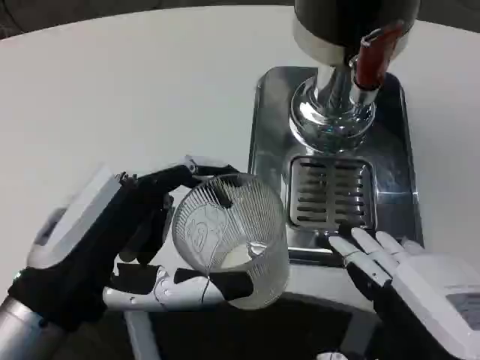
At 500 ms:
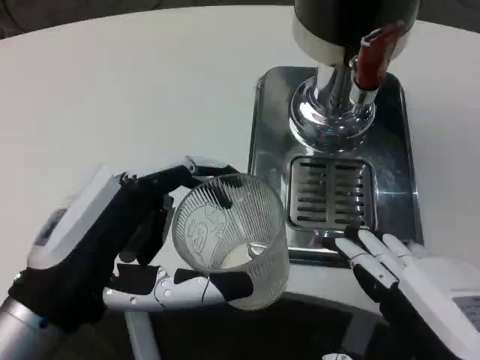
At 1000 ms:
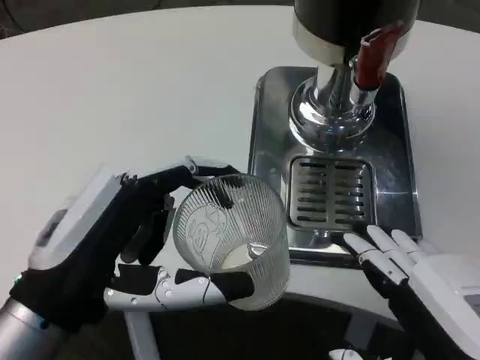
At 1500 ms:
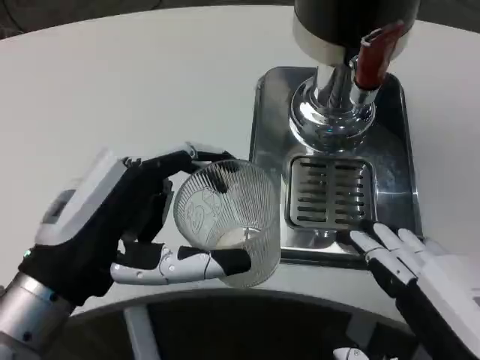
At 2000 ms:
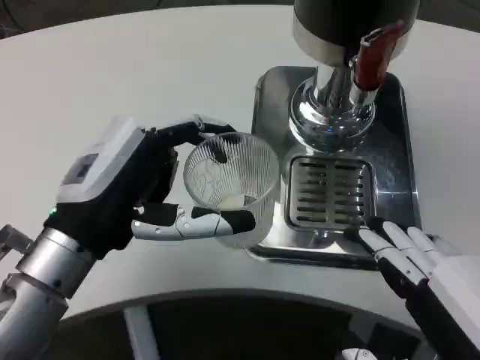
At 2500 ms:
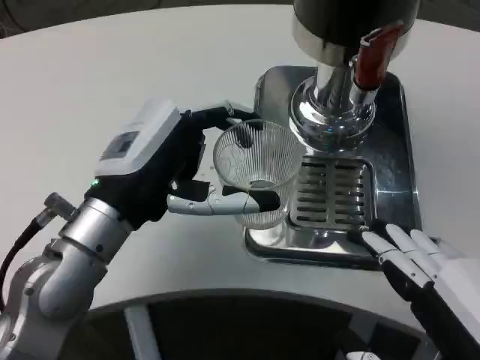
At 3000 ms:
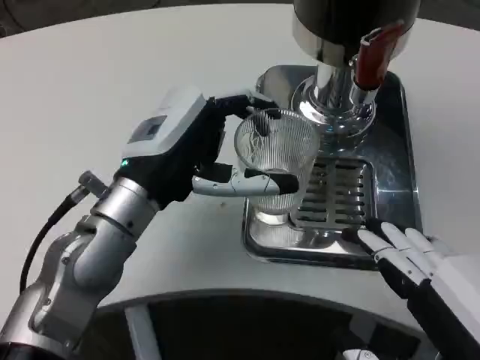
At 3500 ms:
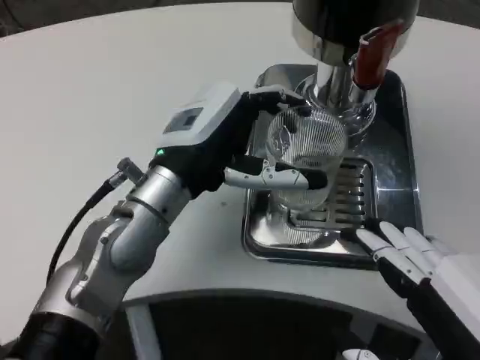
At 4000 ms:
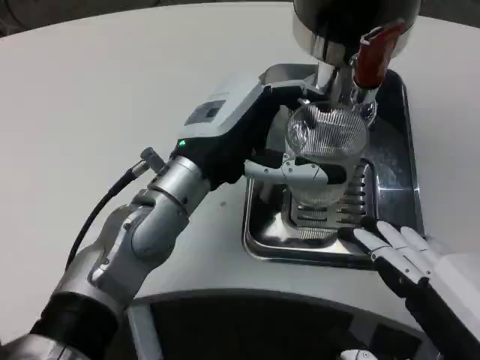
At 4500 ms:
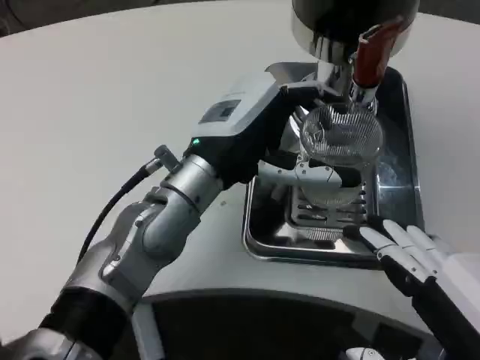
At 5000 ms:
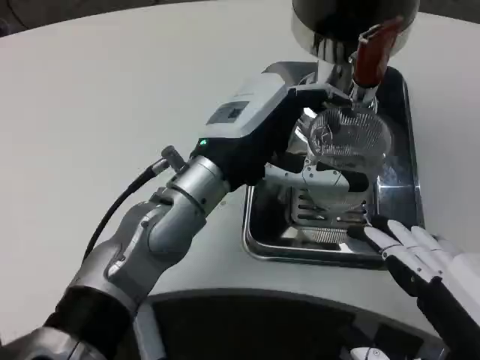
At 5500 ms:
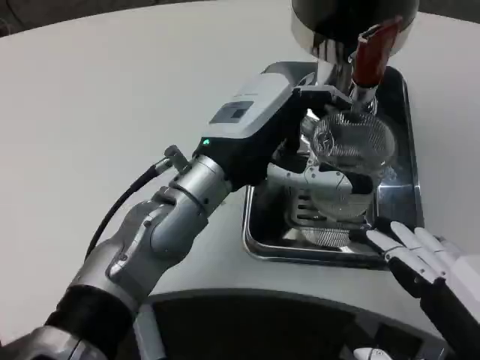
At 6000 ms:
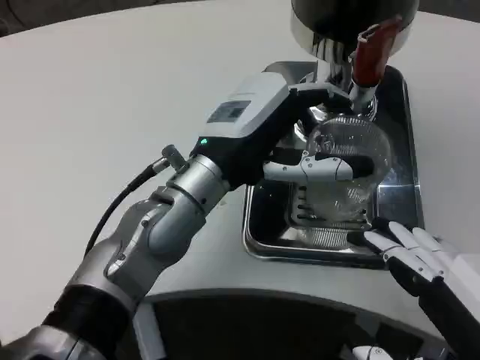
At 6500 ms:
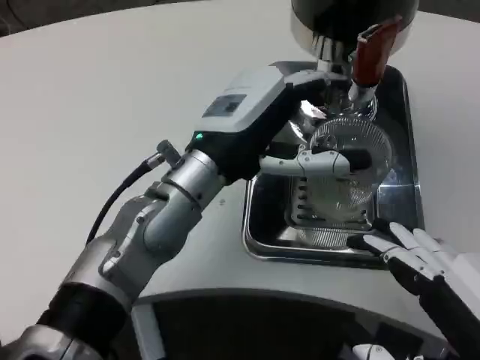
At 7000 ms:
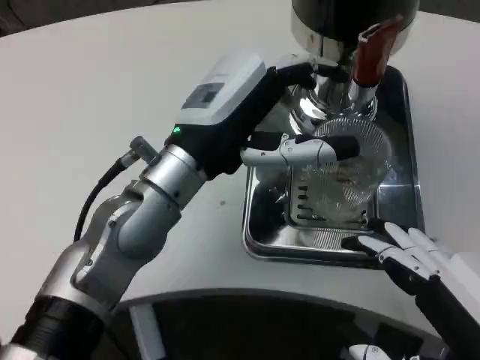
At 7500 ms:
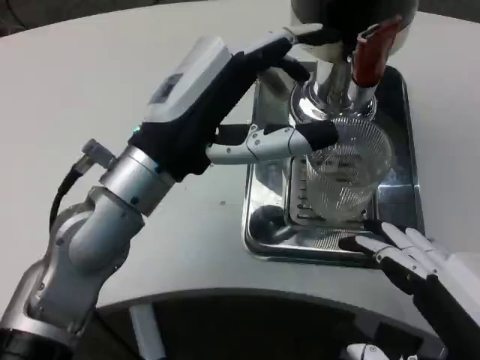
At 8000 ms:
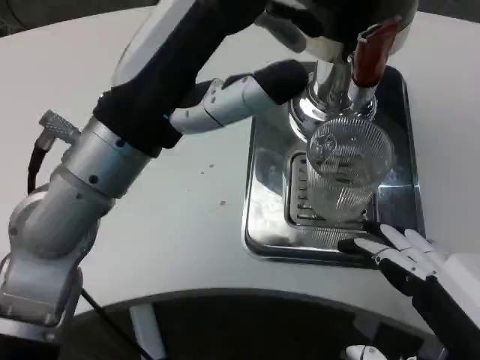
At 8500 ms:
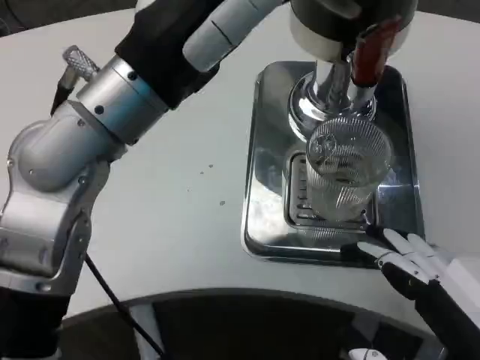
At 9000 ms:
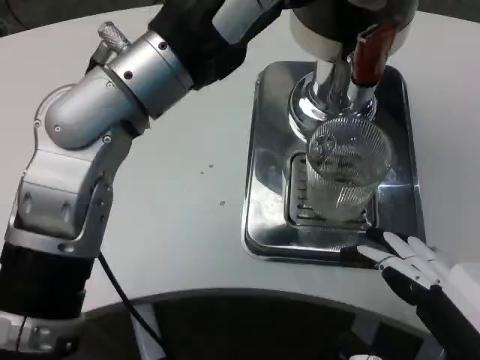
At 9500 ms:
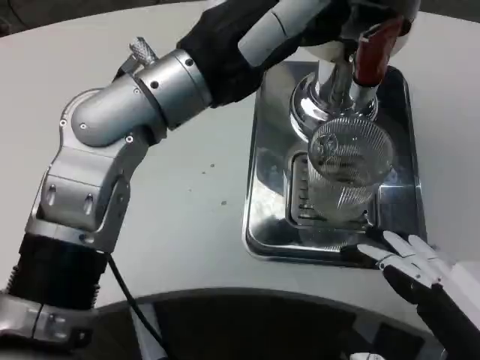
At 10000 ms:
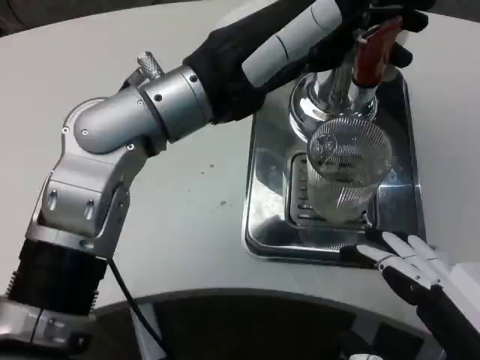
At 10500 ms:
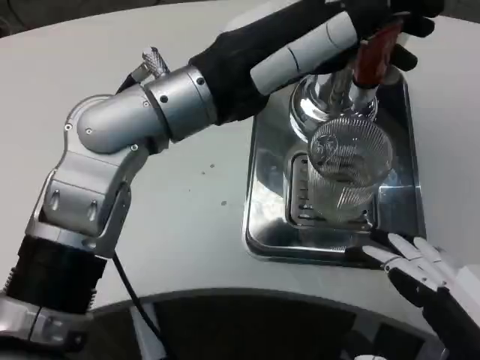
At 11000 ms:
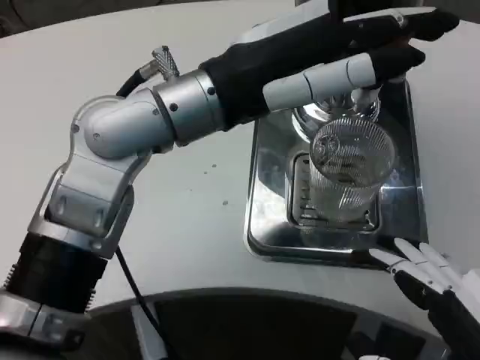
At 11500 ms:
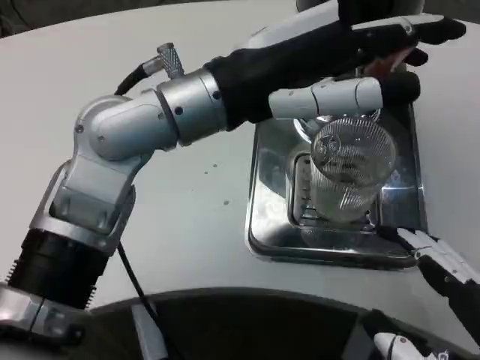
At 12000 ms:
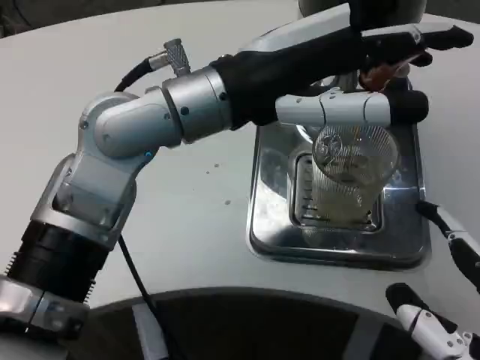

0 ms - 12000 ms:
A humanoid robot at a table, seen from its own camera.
Task of the whole recording: Grasp the cup under the faucet to collect the drink, then remove the cup.
0 ms - 2000 ms: The left hand goes some 5 cm forward.
2000 ms - 4000 ms: The left hand moves forward and to the right, roughly 10 cm.
6000 ms - 8000 ms: The left hand heads upward, backward and to the left, covering some 10 cm.
8000 ms - 10000 ms: The left hand shifts by some 5 cm.

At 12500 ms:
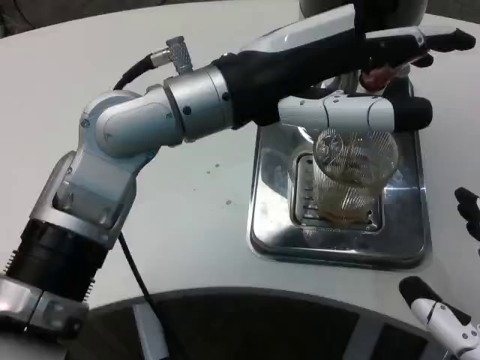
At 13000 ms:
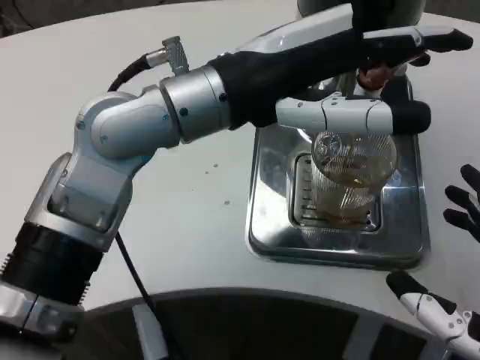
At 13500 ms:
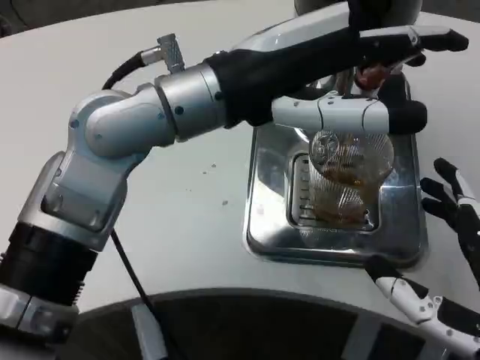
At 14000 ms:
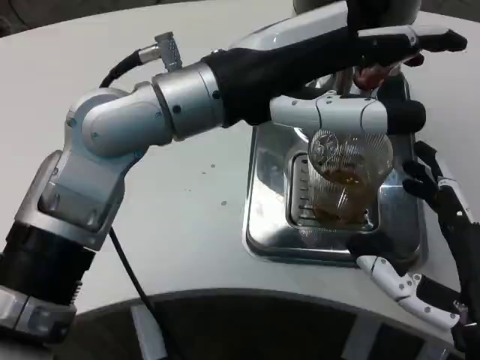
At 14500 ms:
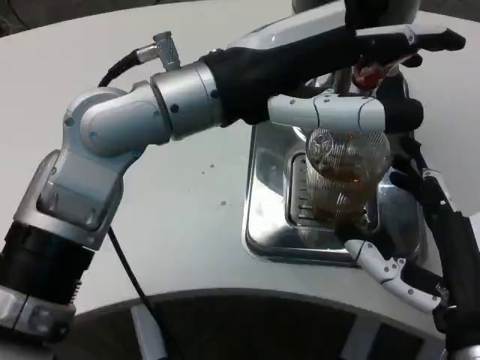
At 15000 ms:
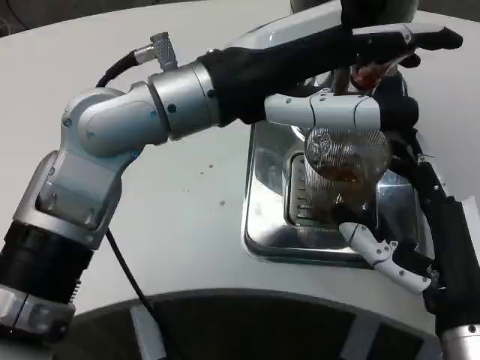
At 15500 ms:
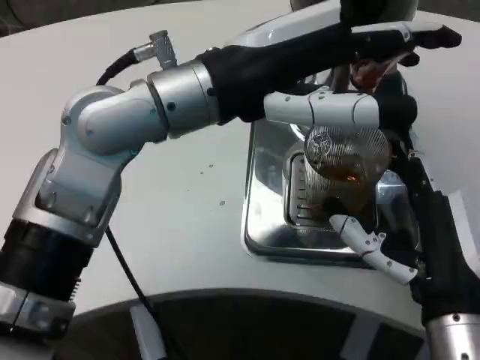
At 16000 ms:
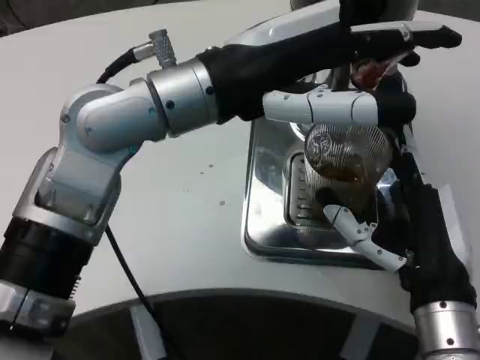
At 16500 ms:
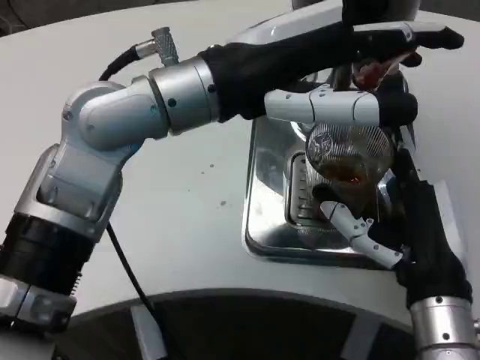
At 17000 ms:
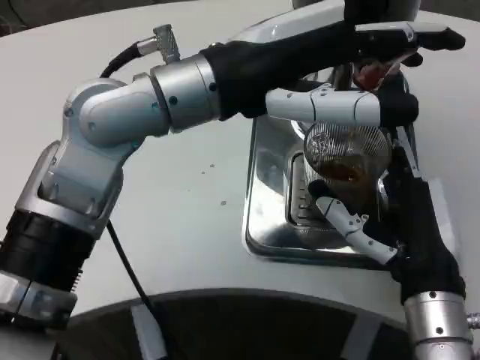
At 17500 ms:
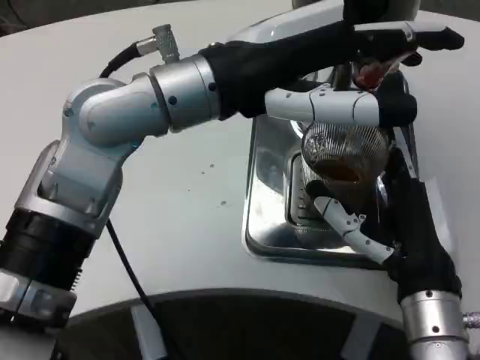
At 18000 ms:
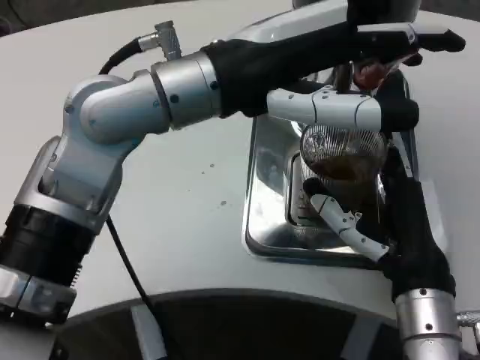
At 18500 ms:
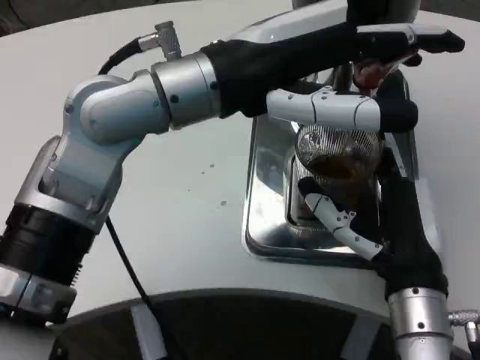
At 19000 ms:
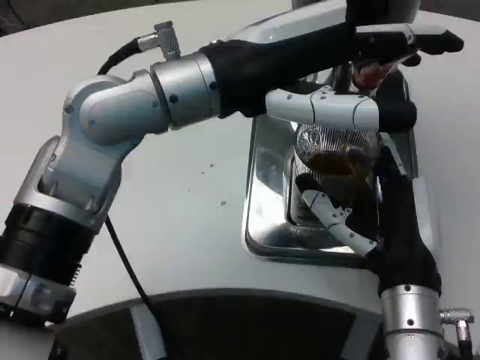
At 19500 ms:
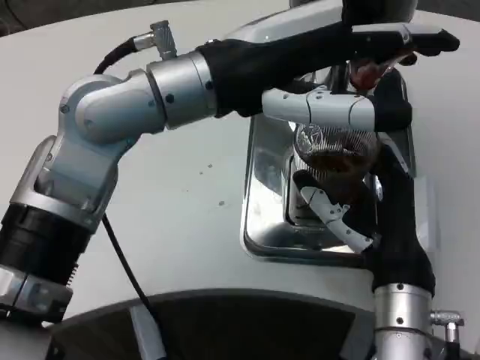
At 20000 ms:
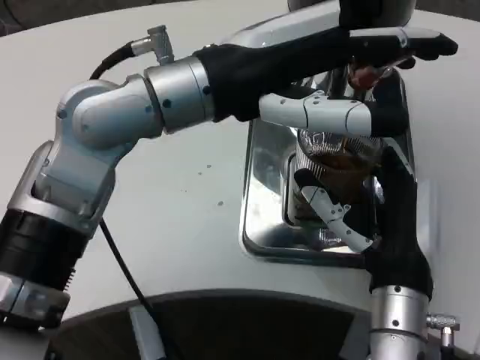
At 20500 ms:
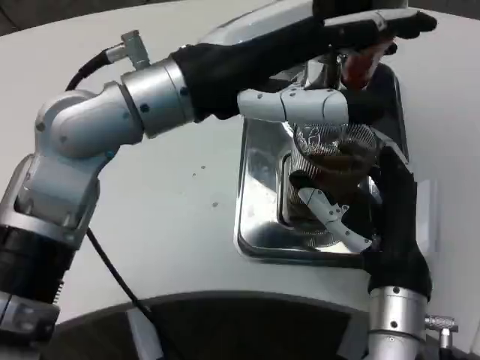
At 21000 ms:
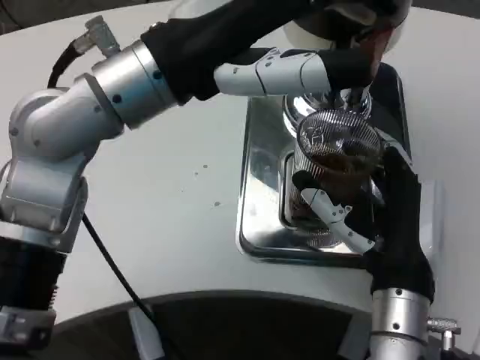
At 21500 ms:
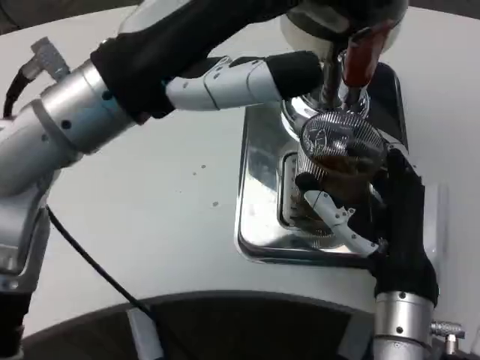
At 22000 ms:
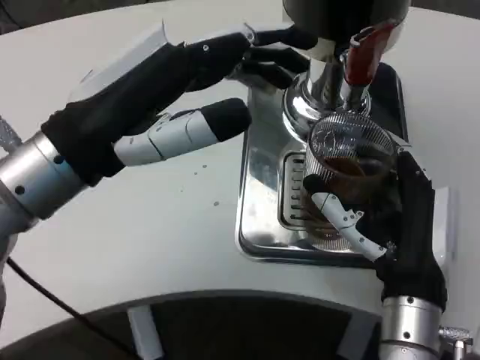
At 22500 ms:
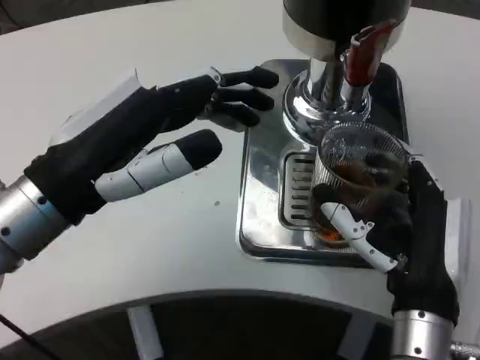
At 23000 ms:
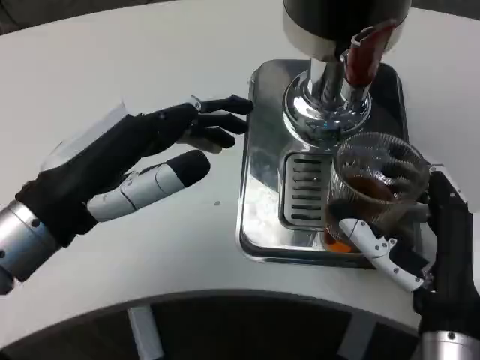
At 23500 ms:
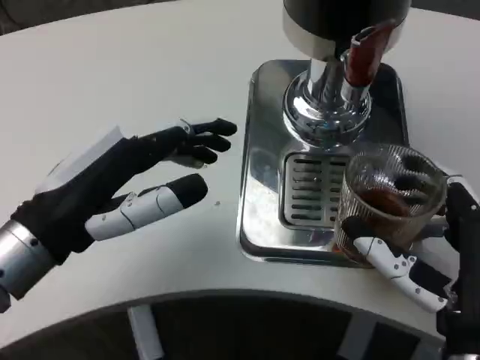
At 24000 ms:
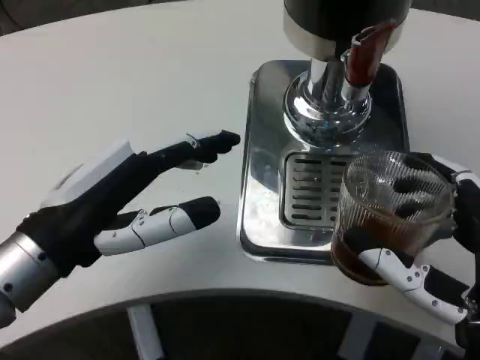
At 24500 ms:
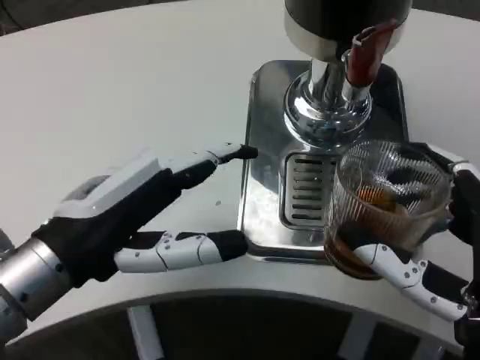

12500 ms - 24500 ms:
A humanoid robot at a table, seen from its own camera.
Task of the whole recording: Grasp the cup under the faucet to collect the drink, then remove the cup.
12500 ms - 14500 ms: The right hand heads forward, covering roughly 10 cm.
14500 ms - 16500 ms: The right hand shifts by some 5 cm.
20500 ms - 22500 ms: The left hand moves to the left, downward and backward, about 15 cm.
22500 ms - 24500 ms: The right hand is displaced backward by roughly 5 cm.

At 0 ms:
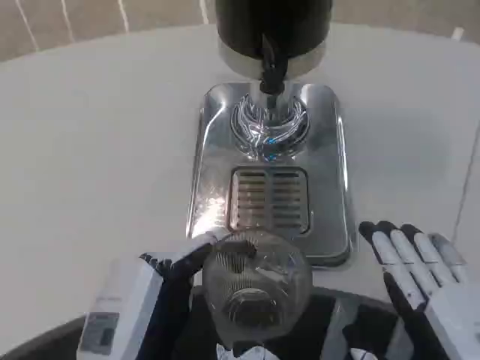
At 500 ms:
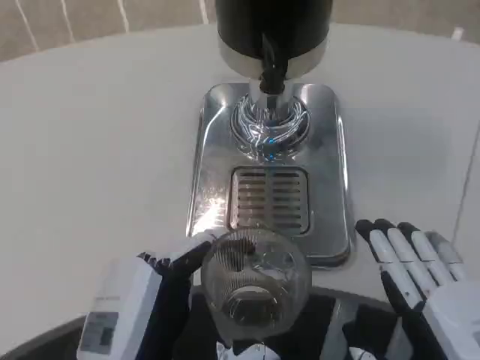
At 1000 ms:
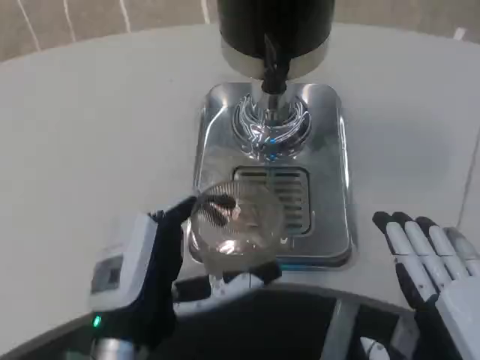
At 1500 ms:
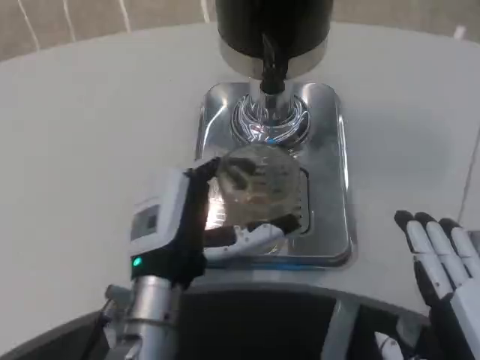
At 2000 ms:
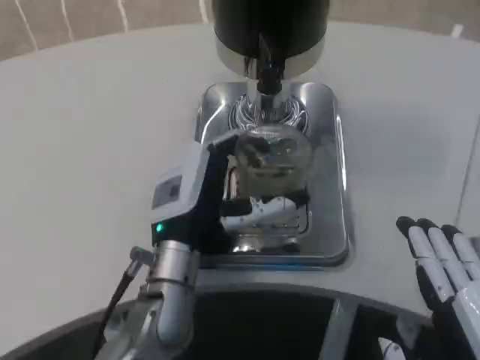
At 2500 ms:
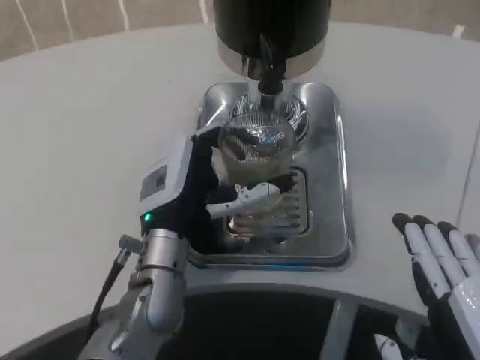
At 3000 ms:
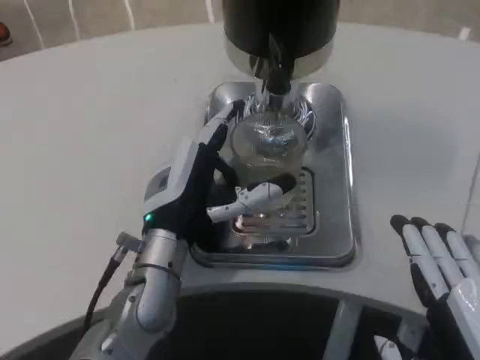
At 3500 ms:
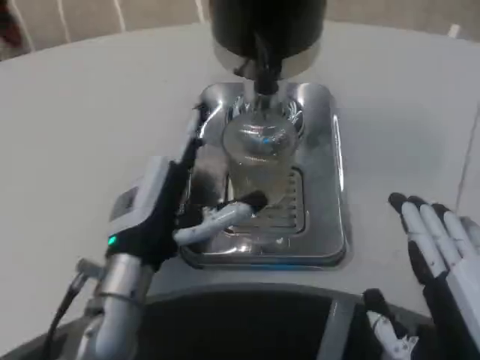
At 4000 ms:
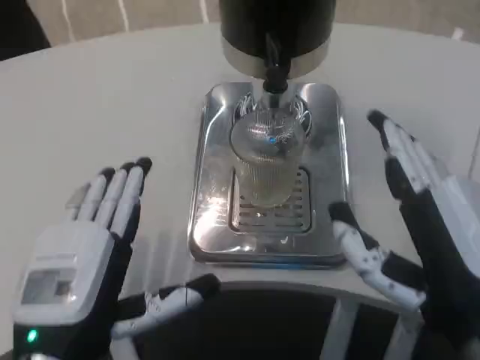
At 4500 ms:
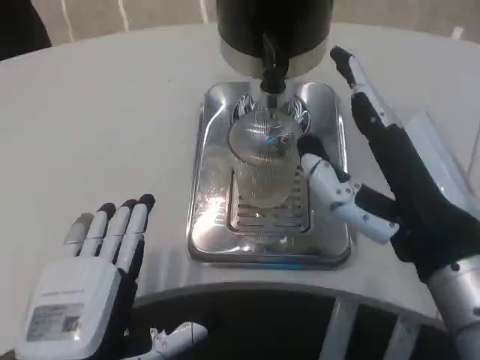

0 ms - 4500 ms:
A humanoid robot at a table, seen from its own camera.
Task of the whole recording: Grasp the cup under the faucet to collect the drink, then remove the cup.
0 ms - 2000 ms: The left hand shifts about 15 cm forward.
2000 ms - 4500 ms: The right hand goes roughly 10 cm forward and upward. The left hand shifts some 15 cm backward and to the left.
